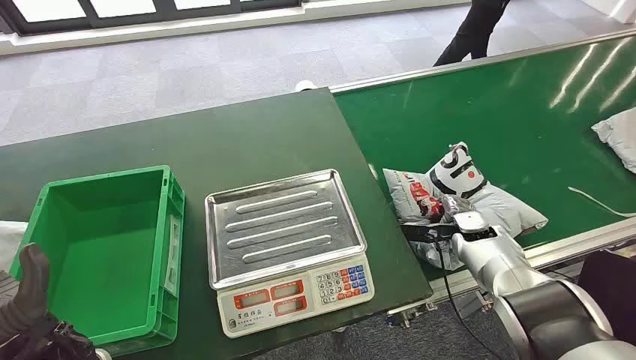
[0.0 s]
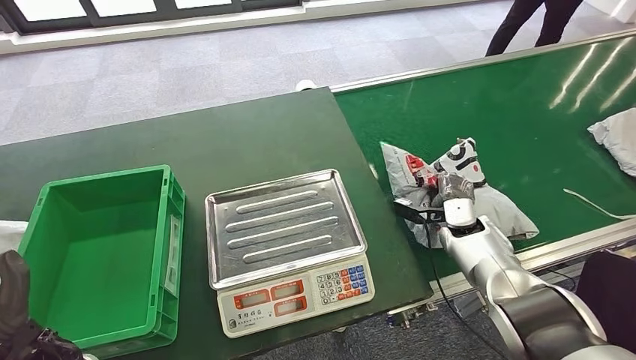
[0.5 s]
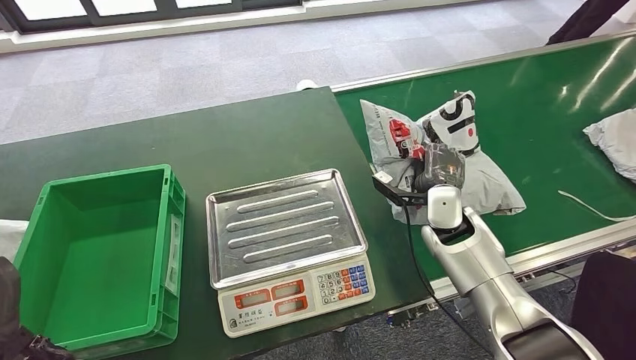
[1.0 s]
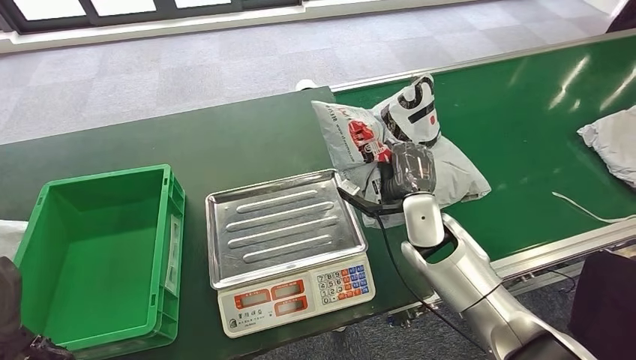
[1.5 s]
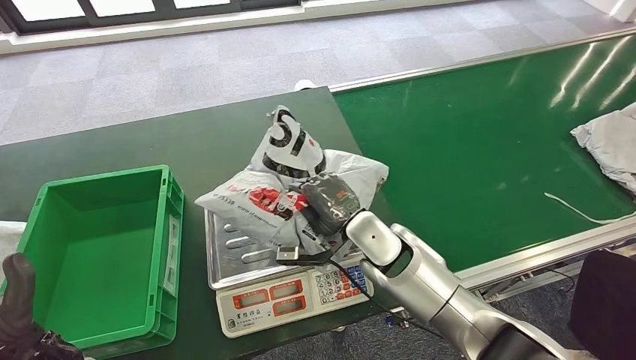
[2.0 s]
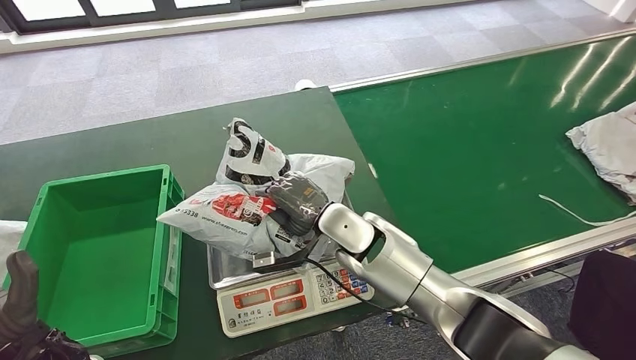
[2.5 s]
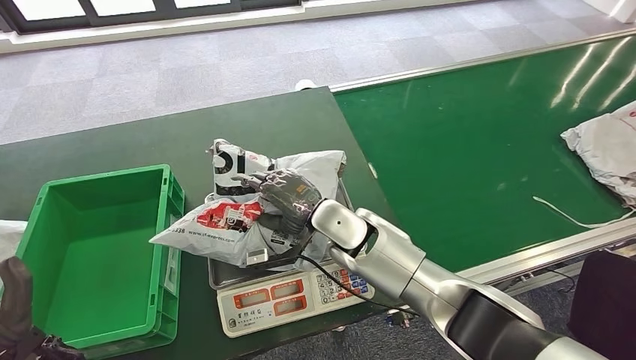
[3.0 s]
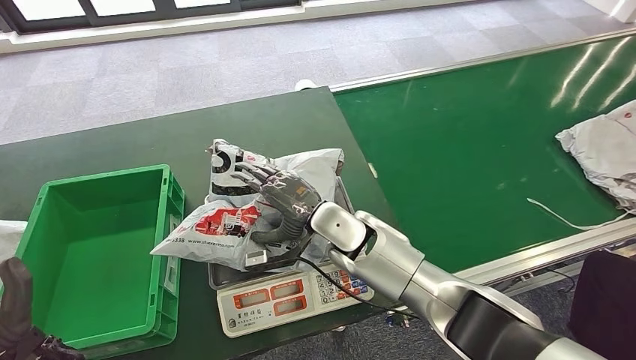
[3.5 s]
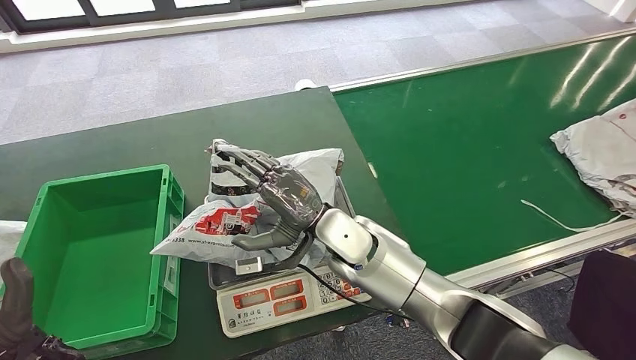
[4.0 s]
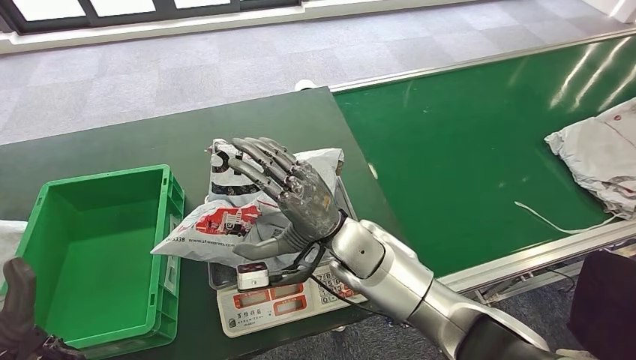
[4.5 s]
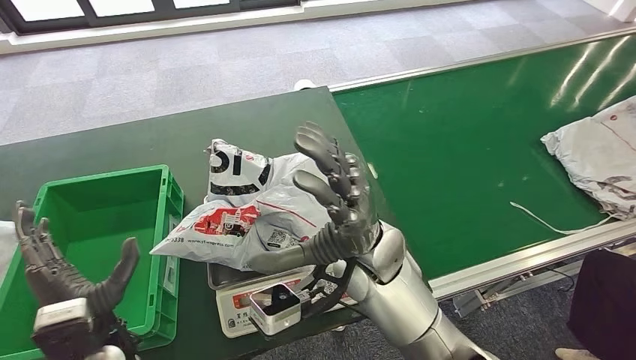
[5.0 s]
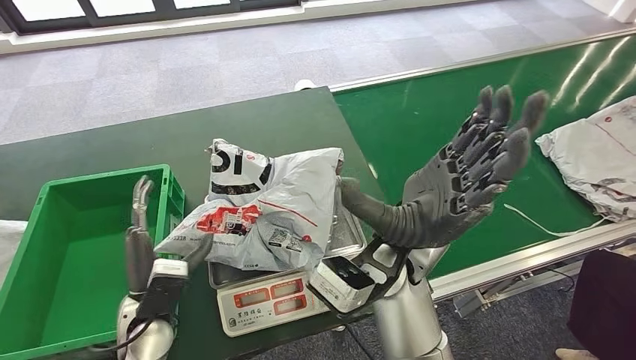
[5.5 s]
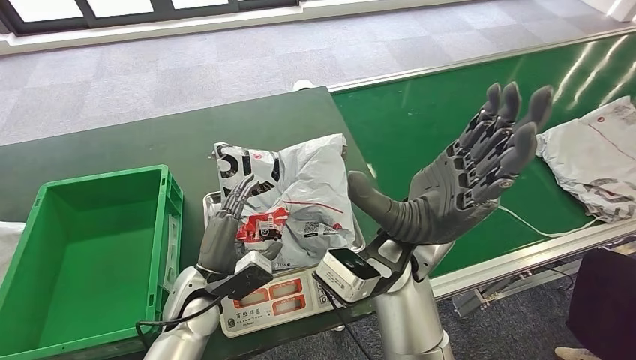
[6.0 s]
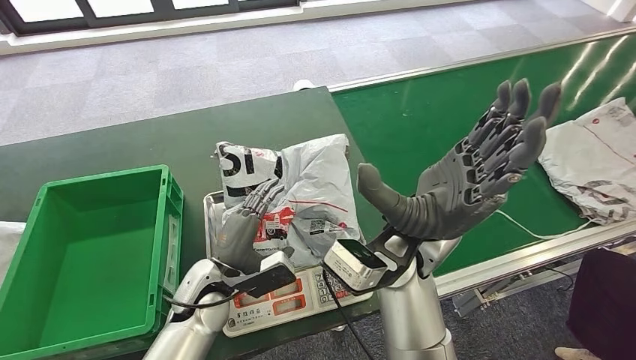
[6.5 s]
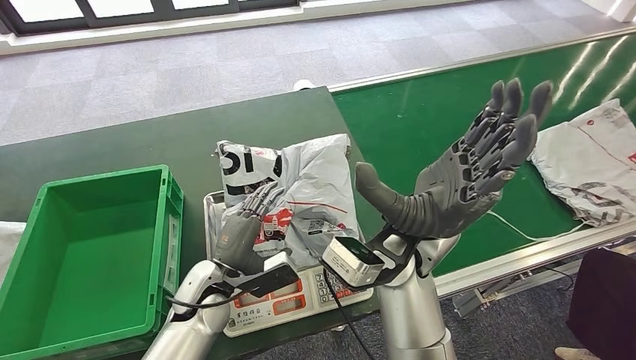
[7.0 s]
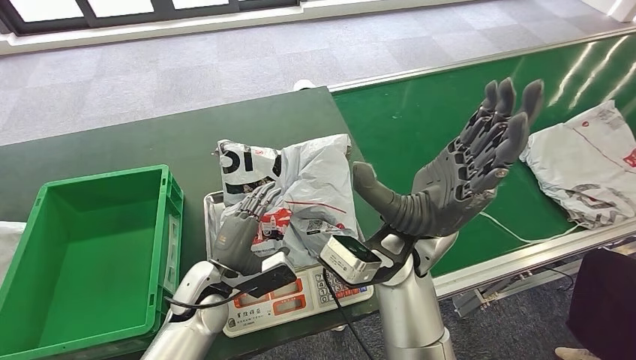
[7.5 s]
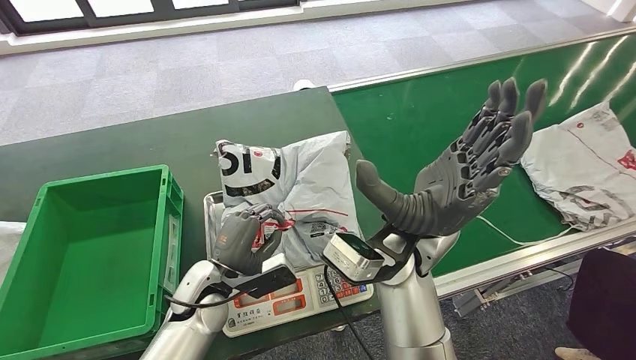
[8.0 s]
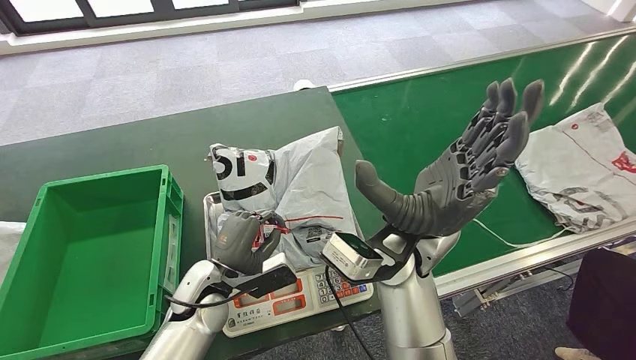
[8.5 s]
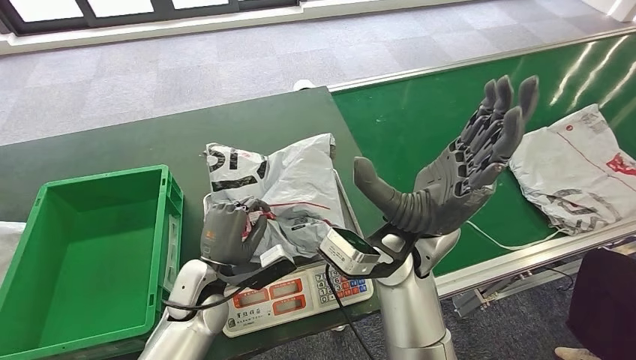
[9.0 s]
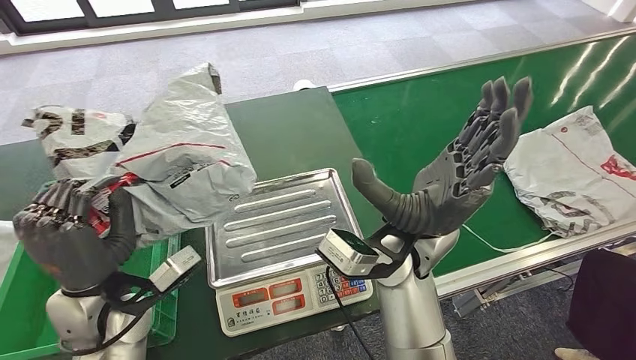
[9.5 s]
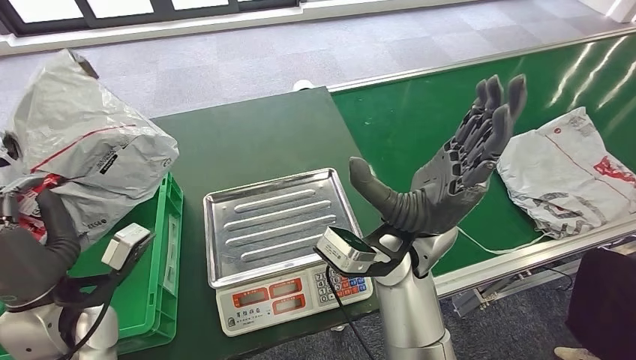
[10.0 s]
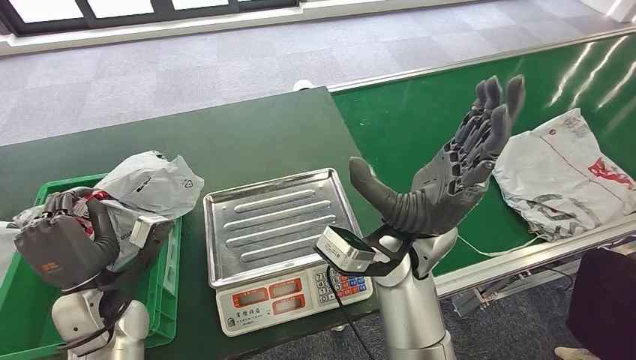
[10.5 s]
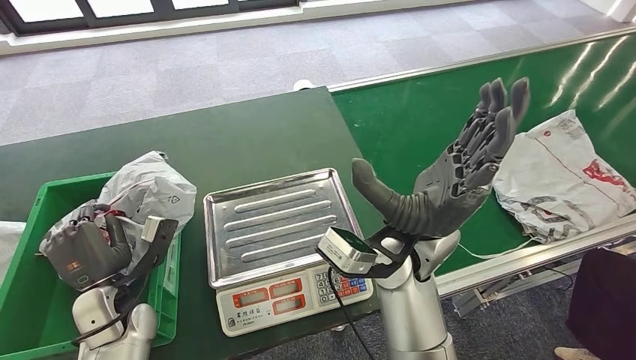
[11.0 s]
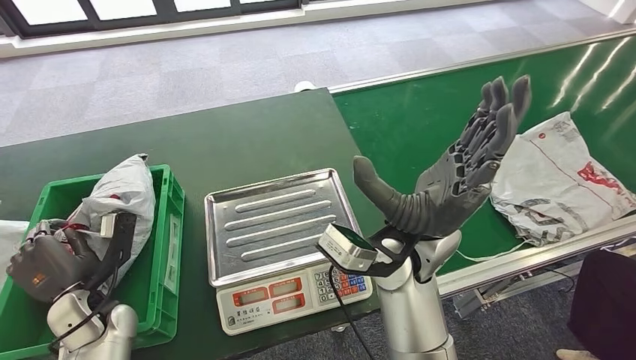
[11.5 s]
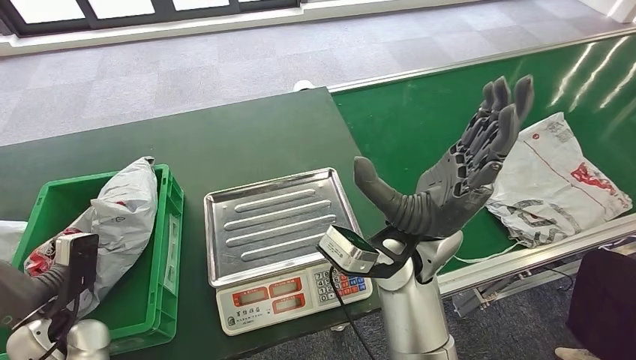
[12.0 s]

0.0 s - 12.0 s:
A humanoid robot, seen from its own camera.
Step, 0.0 s - 1.0 s: Take the parcel off the conveyor belt.
Step, 2.0 s - 4.0 s: Place the parcel onto the inbound machine.
Step, 5.0 s - 9.5 s: Pick up the parcel from the inbound machine.
2.0 s - 4.0 s: The right hand goes some 5 cm to the left.
6.0 s - 8.0 s: There are only small adjustments of the hands.

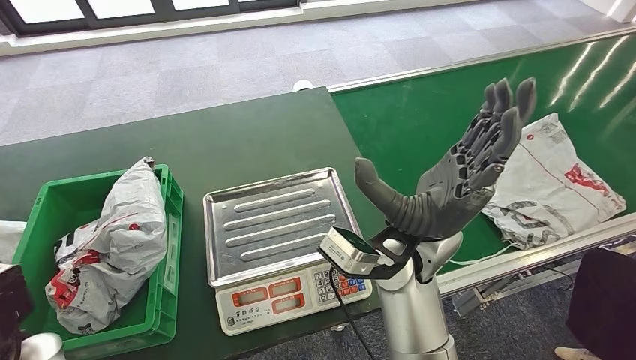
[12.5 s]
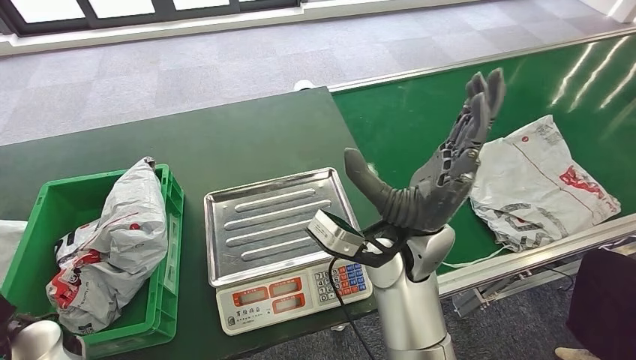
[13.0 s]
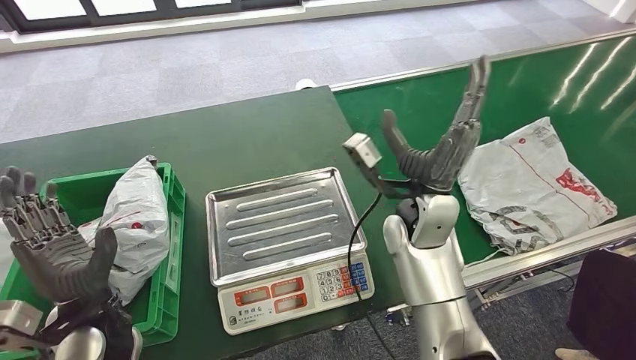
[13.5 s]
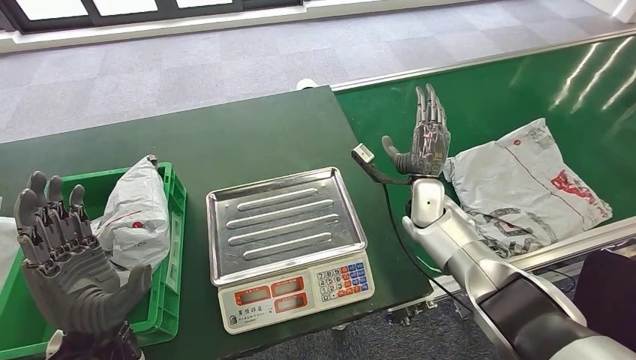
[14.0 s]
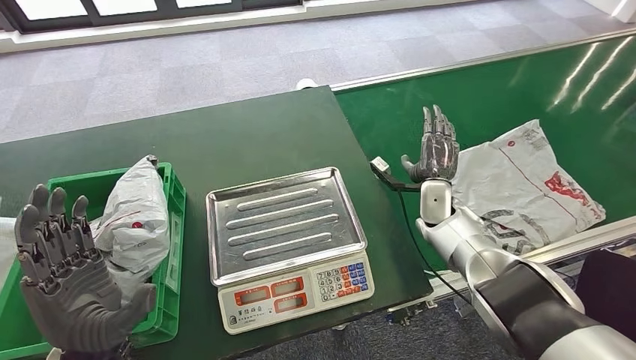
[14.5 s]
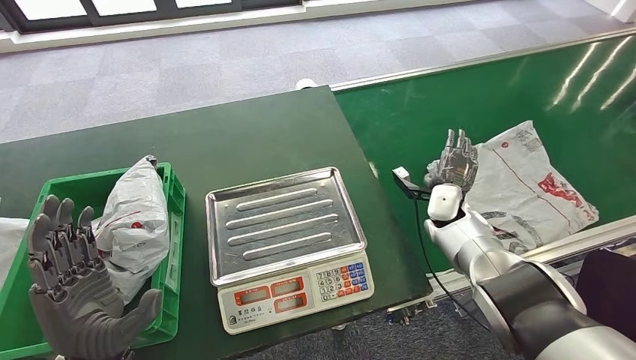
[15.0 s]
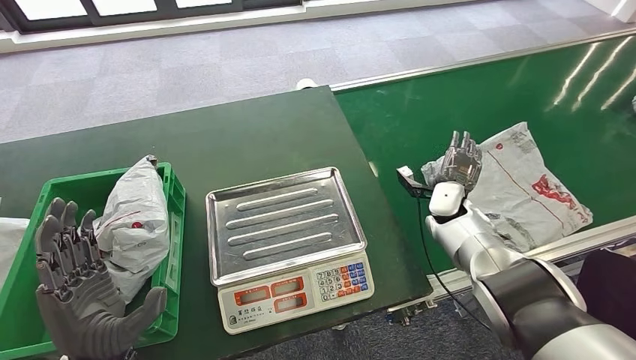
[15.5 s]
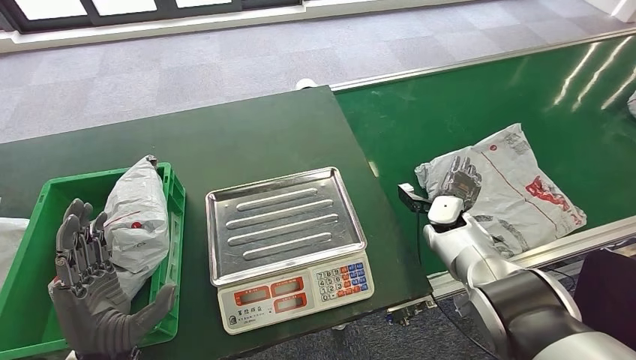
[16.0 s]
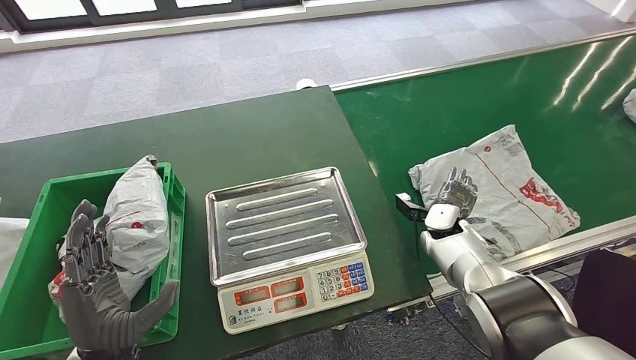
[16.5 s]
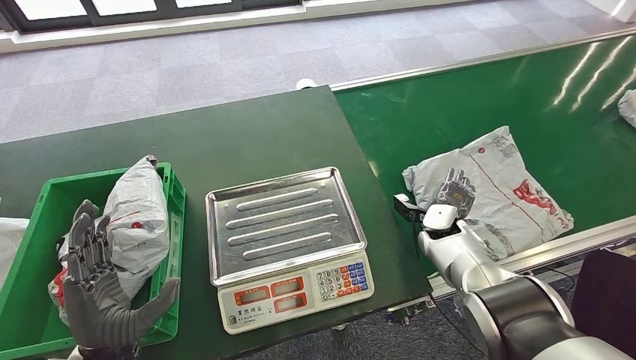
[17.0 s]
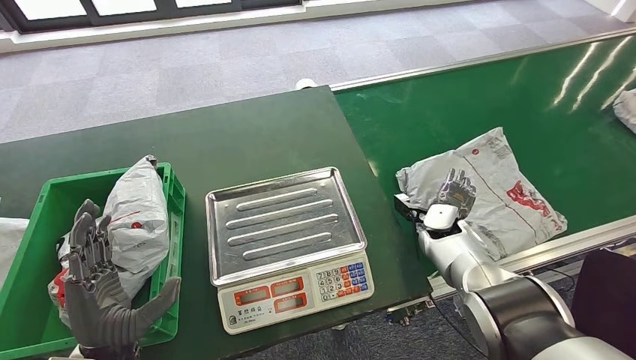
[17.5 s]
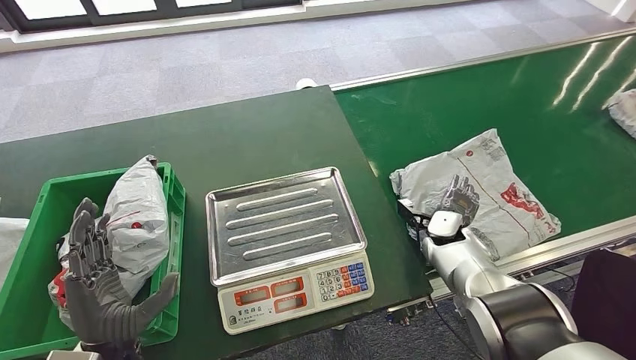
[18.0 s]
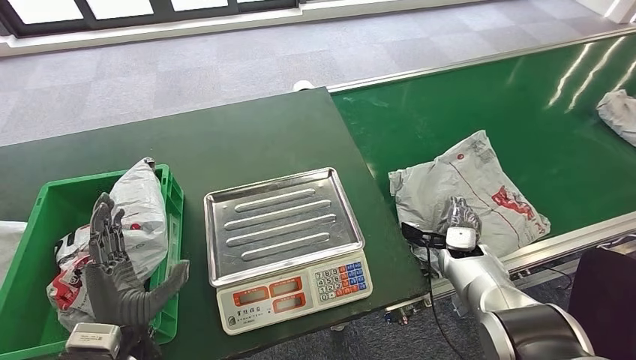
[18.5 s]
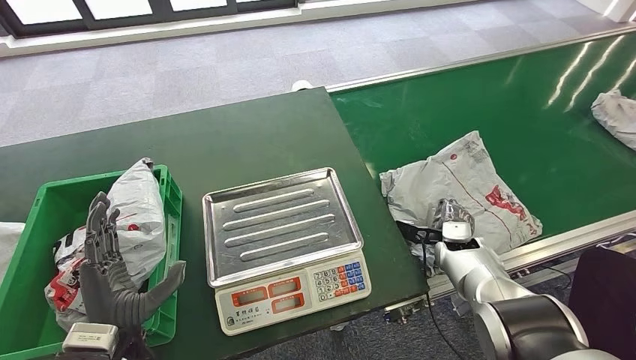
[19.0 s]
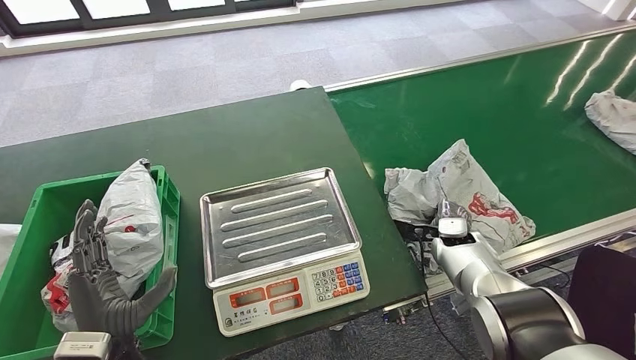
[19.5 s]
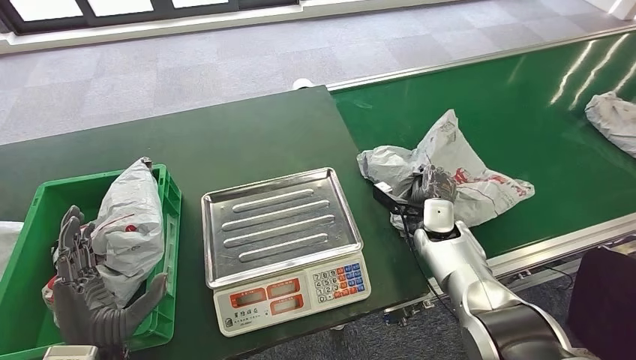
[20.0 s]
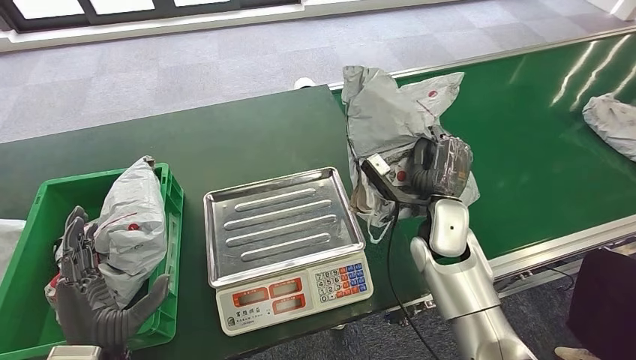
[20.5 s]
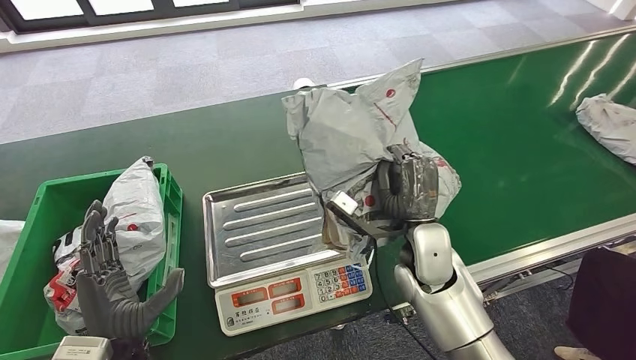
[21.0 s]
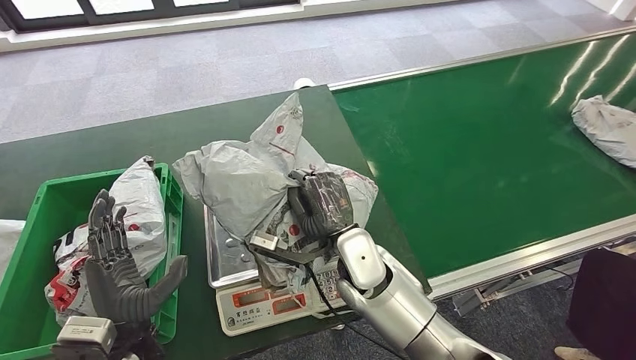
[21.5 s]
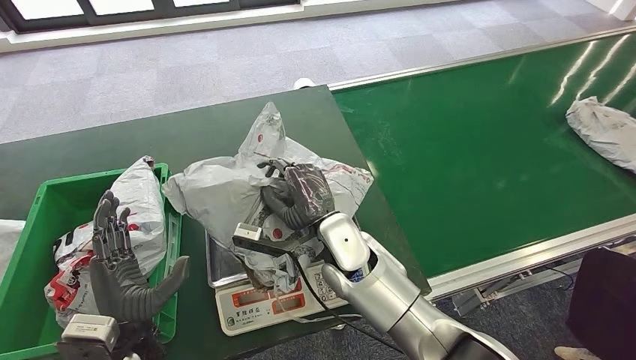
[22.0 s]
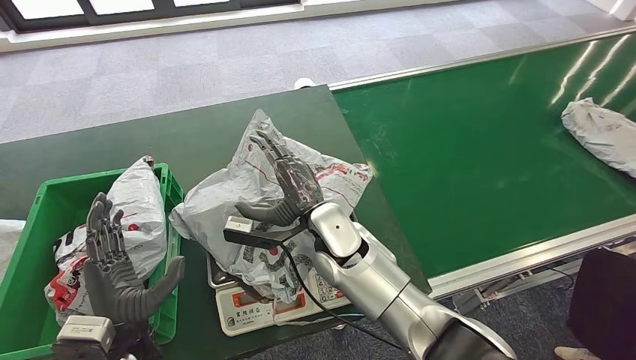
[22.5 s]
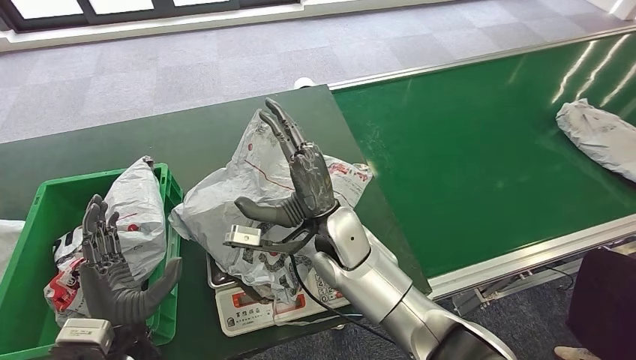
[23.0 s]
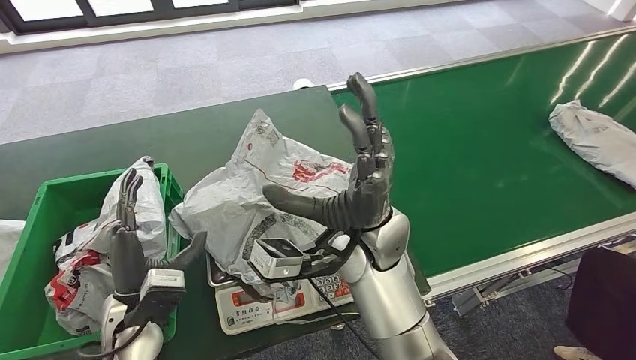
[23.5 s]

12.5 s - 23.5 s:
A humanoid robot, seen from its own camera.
Step, 19.0 s - 20.5 s: Pick up the parcel from the conveyor belt.
Step, 21.0 s - 23.0 s: Place the parcel onto the inbound machine.
14.5 s - 16.0 s: The right hand shifts by roughly 5 cm.
16.0 s - 18.0 s: The hands move only a little.
